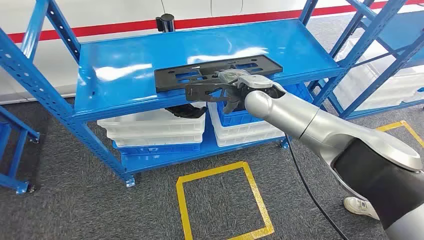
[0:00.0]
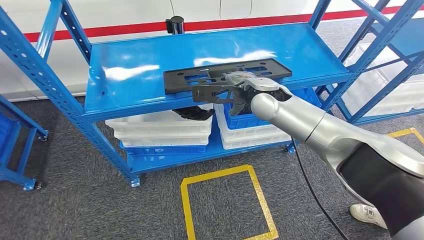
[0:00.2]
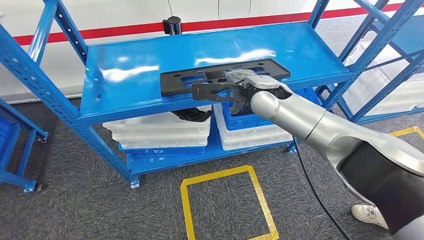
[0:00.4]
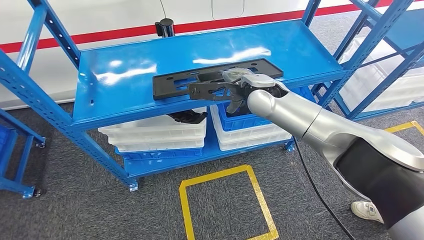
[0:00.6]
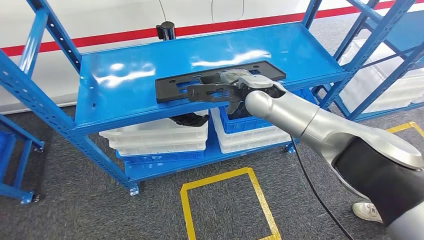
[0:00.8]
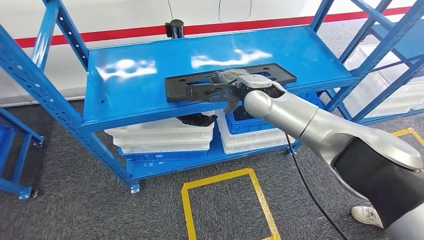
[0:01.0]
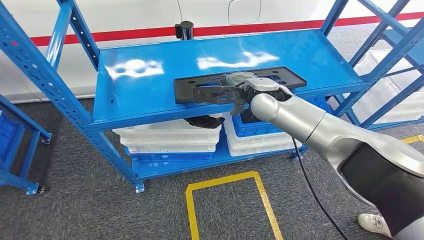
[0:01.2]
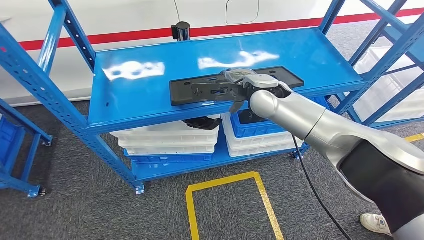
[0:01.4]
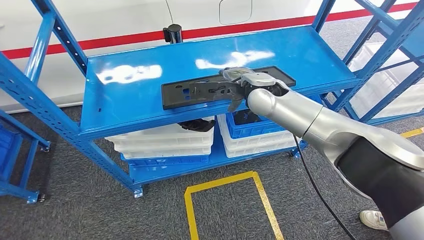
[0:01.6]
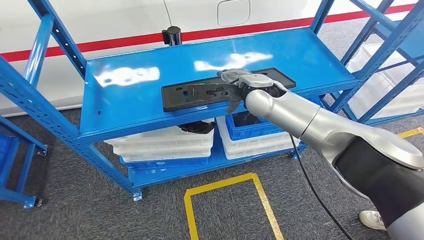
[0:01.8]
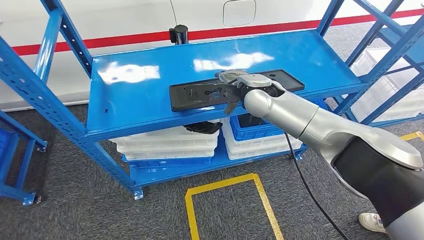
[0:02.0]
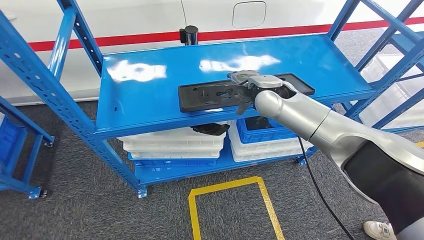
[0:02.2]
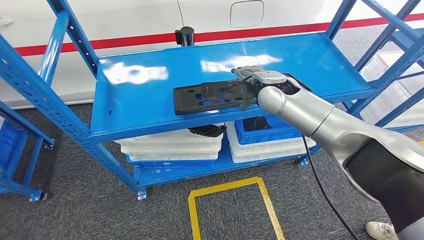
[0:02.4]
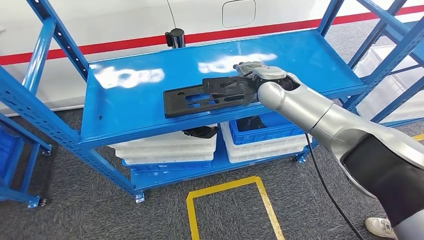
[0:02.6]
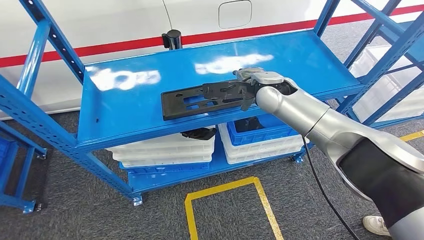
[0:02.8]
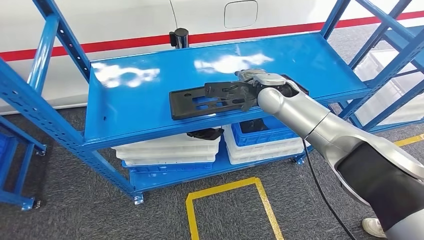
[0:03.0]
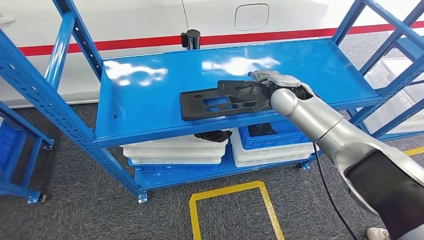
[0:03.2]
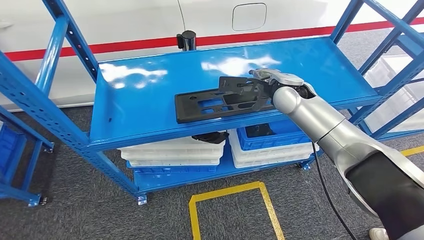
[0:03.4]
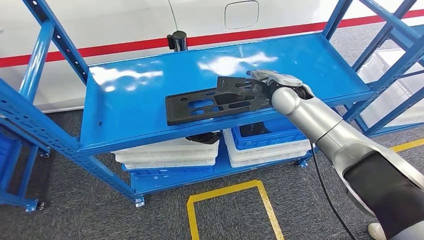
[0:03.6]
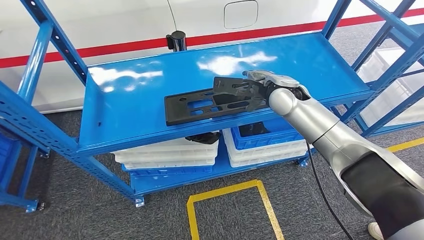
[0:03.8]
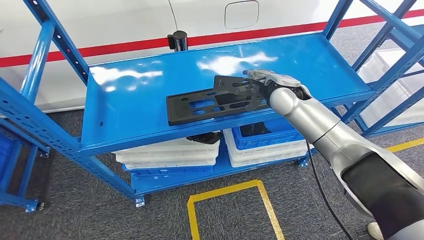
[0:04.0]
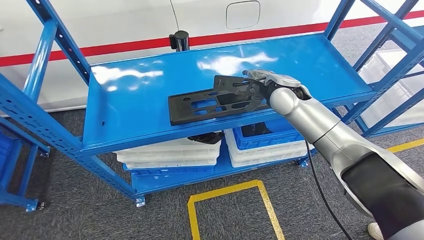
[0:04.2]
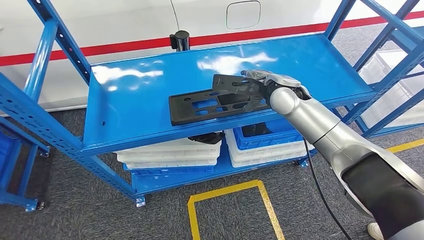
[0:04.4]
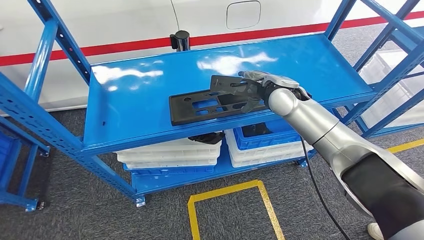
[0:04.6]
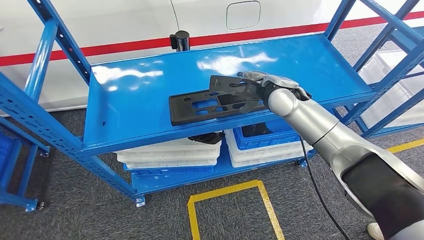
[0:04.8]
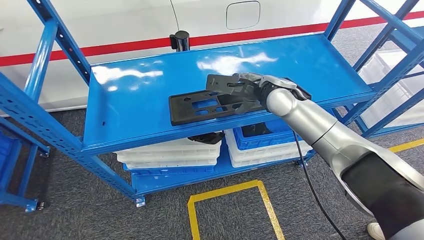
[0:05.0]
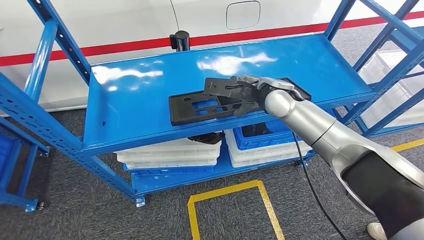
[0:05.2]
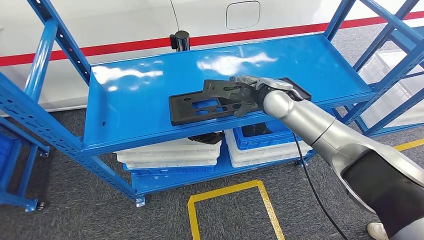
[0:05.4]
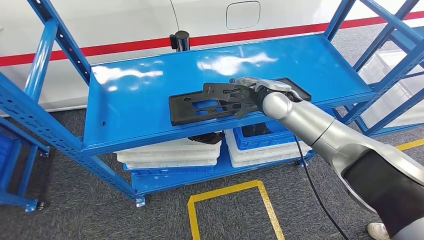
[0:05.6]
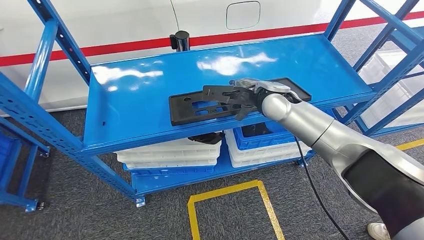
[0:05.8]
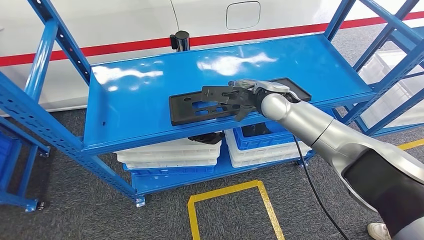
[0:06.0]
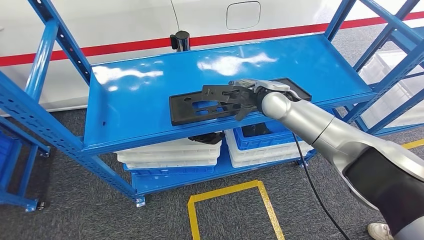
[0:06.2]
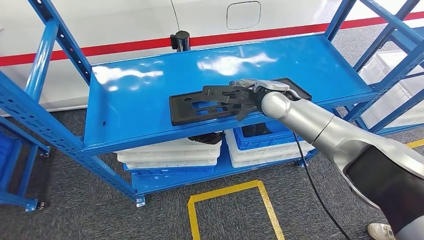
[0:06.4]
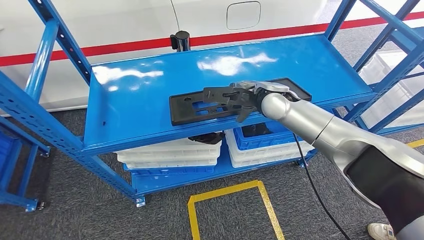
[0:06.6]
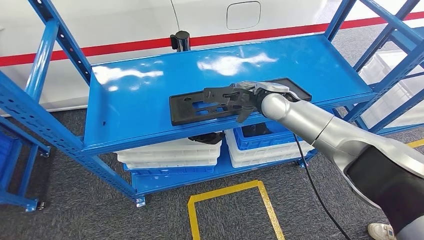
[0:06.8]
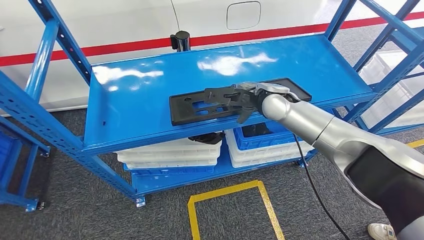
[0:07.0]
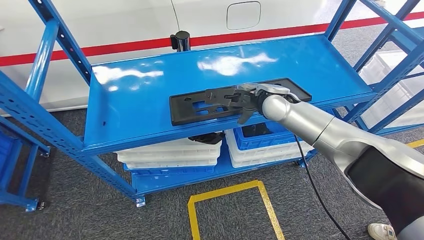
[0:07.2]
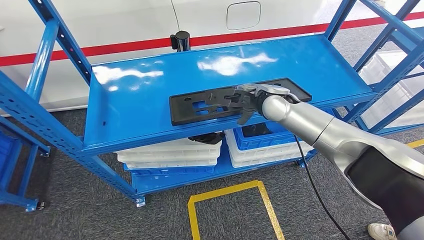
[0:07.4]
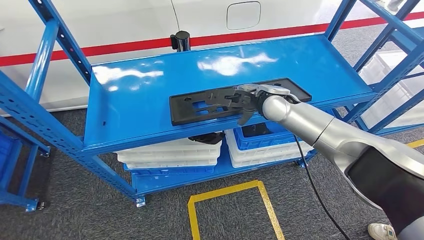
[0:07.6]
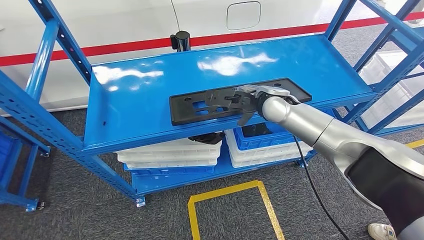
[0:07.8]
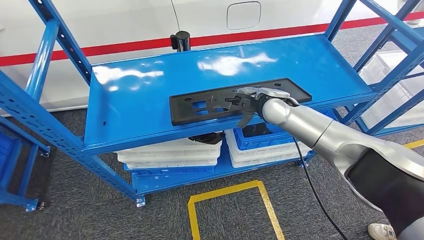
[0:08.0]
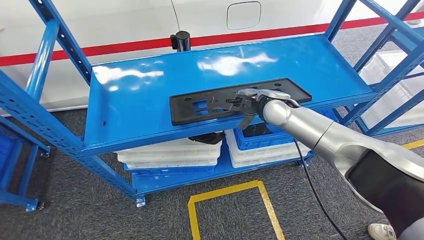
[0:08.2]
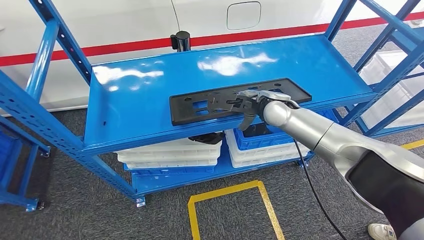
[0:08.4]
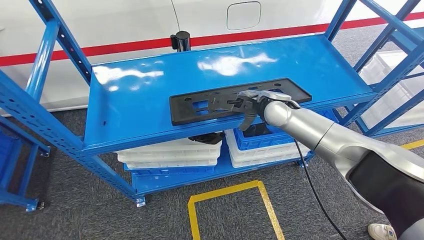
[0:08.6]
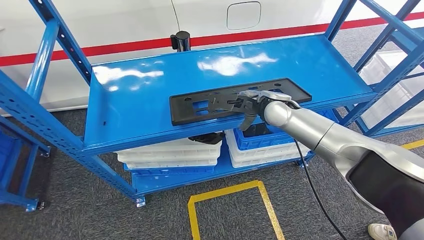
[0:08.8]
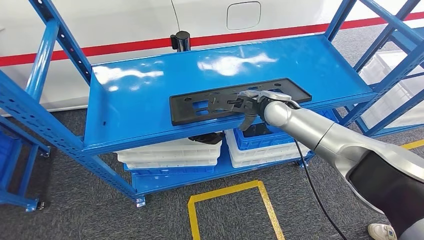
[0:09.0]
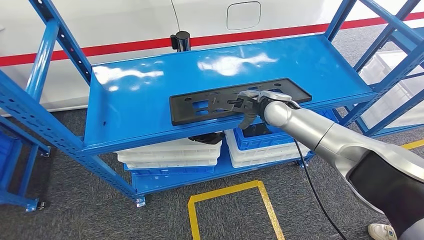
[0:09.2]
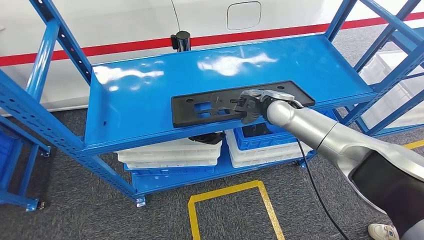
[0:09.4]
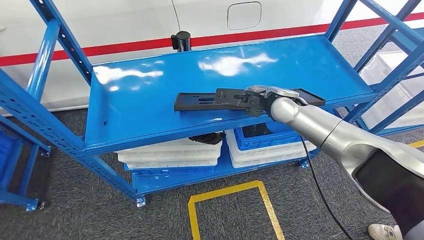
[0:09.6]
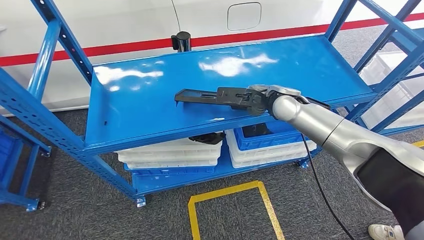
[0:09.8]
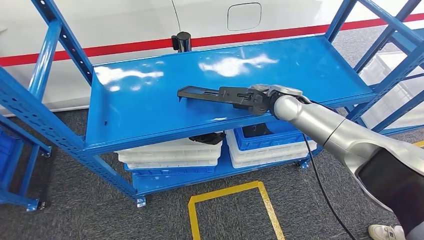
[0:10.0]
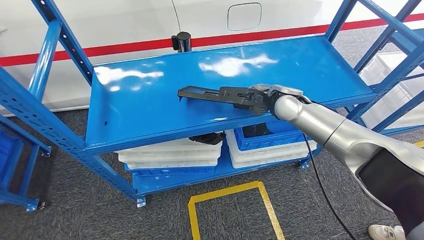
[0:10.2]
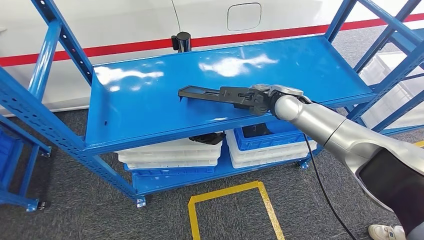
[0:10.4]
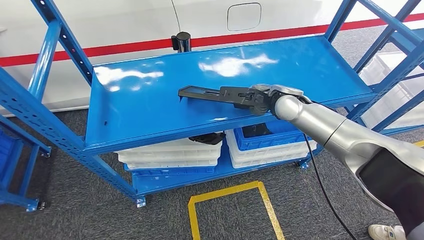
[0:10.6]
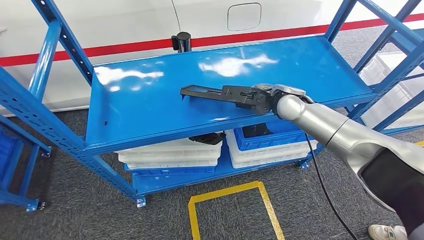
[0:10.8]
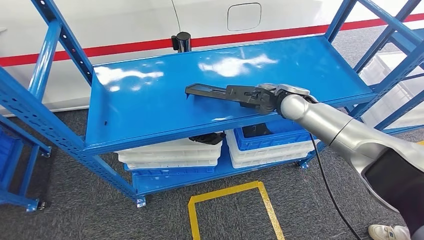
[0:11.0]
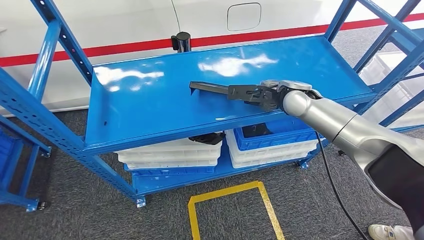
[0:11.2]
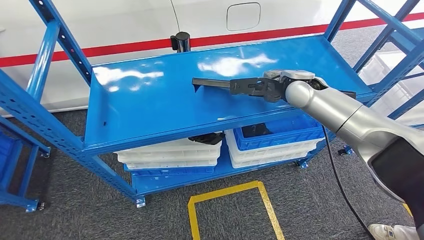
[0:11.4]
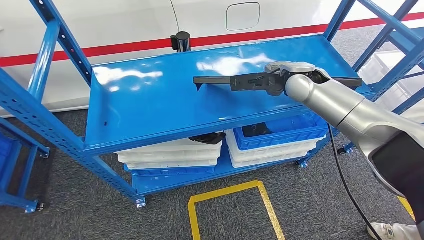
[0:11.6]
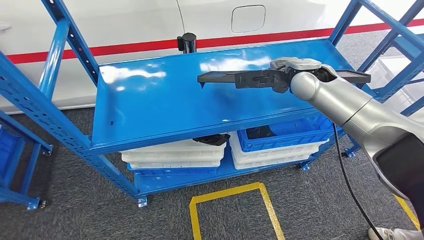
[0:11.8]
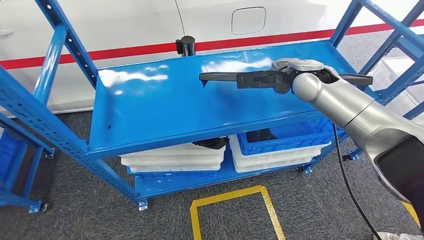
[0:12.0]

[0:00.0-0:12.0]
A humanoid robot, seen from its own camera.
4.4 to 6.0 s: The hands stay close to where they were, moving slightly.
6.0 to 7.6 s: The two hands keep their place.
7.6 to 10.4 s: The hands make only small movements.

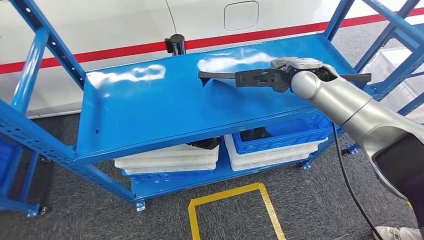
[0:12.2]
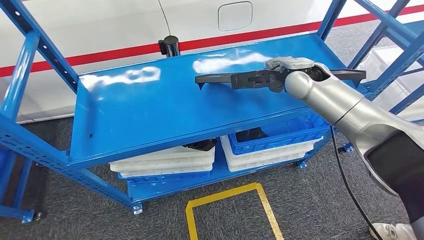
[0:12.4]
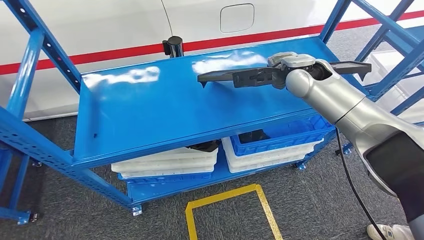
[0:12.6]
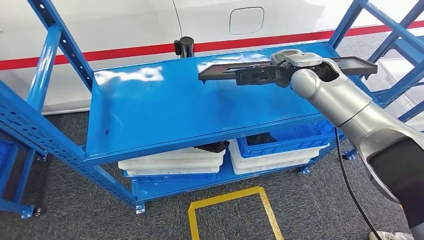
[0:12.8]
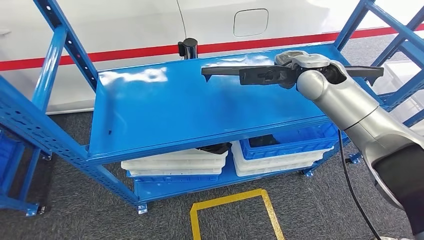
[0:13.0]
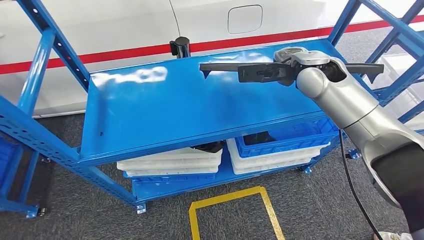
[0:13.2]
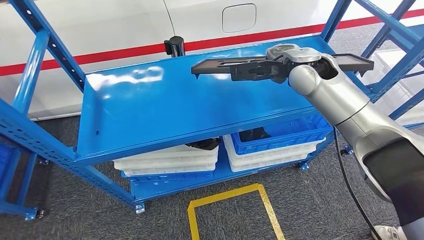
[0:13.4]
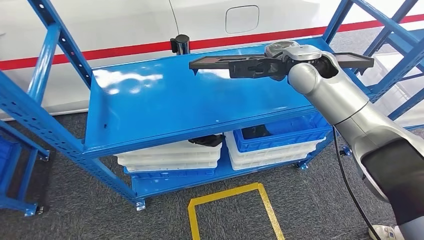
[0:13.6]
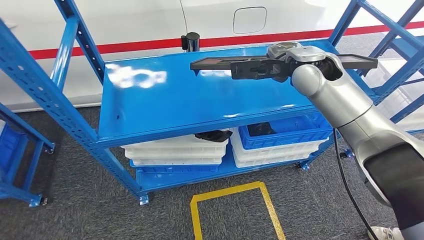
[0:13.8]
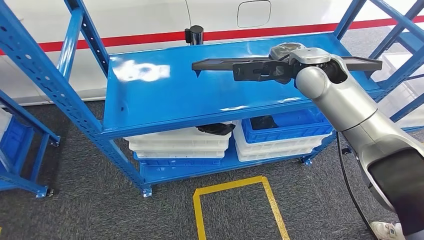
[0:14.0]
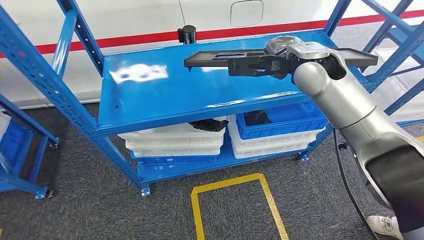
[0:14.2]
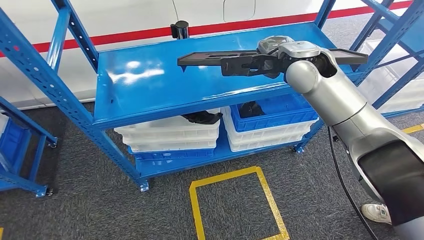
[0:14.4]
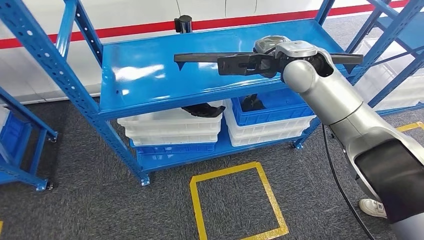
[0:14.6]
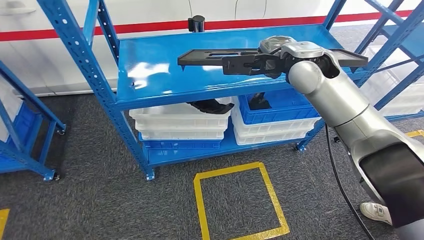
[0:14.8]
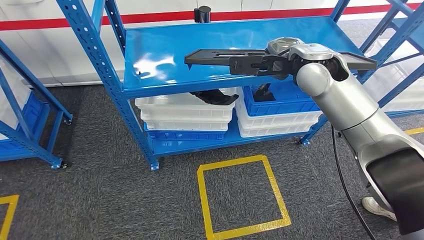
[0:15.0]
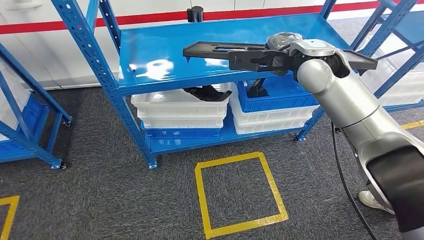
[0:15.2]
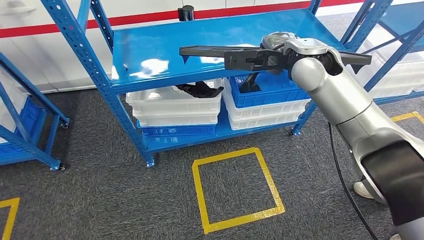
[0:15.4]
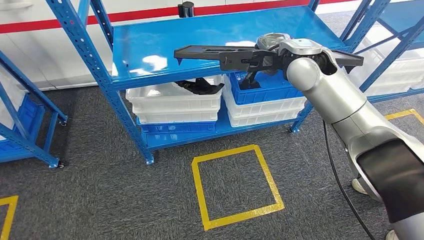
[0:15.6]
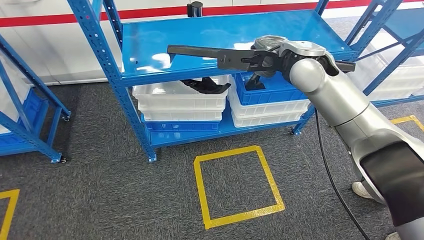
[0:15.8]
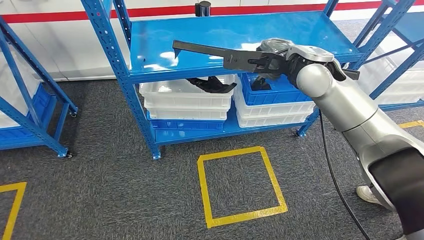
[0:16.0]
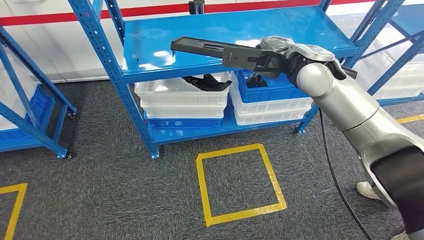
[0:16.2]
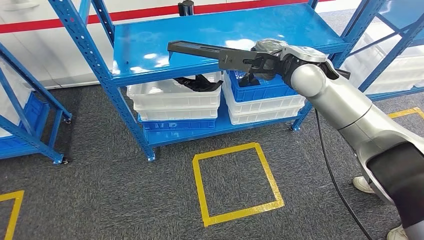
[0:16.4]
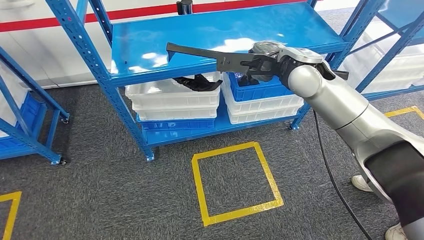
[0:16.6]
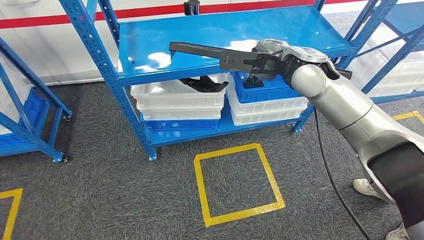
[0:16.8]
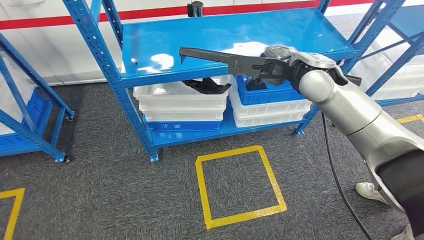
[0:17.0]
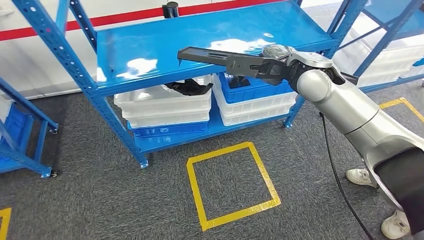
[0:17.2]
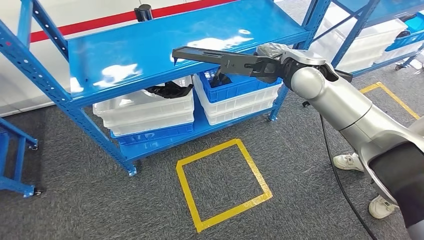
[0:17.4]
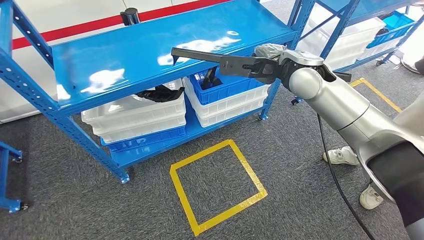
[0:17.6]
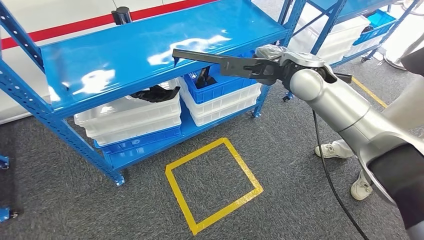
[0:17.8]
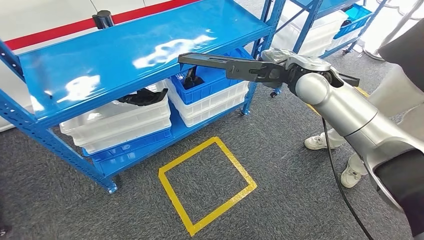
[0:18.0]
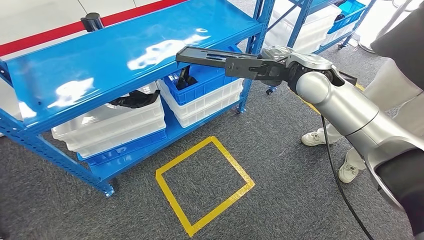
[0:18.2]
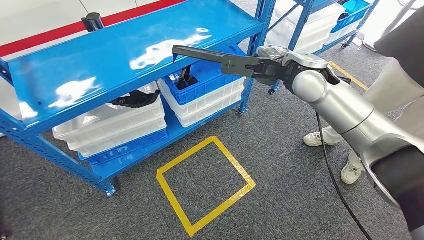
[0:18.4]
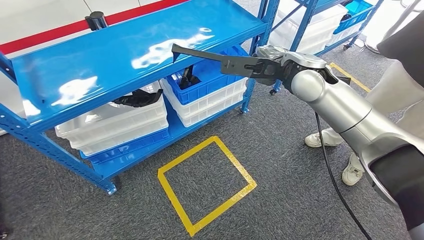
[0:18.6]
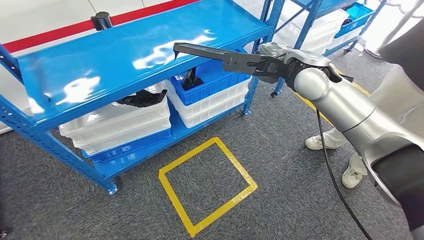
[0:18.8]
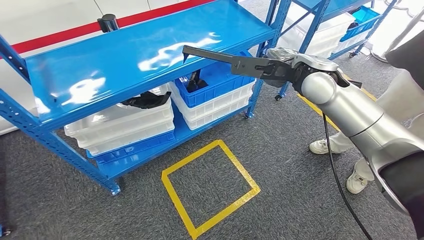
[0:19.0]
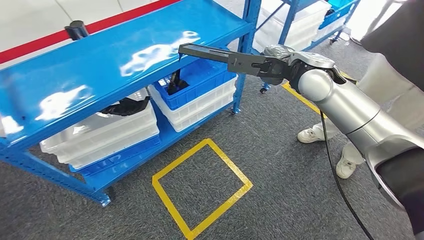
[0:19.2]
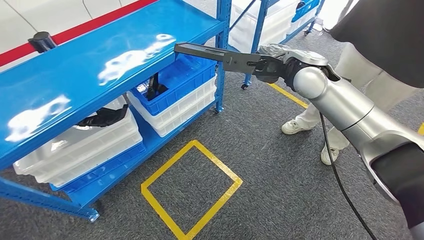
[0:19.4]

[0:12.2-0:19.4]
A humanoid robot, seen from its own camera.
Step, 12.2 to 17.2 s: Pick up the large material from the shelf.
